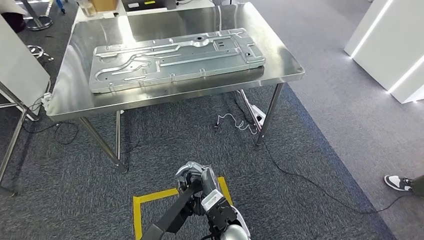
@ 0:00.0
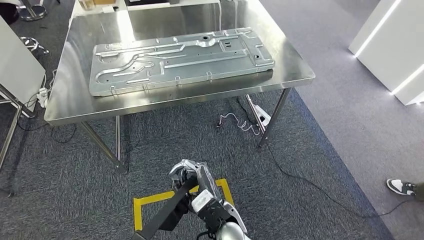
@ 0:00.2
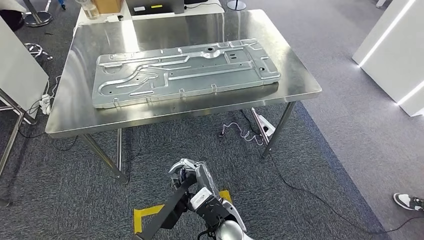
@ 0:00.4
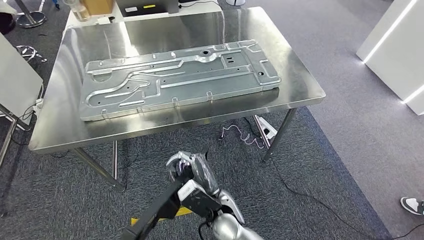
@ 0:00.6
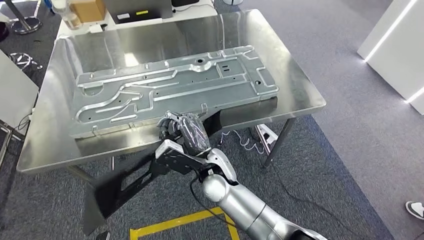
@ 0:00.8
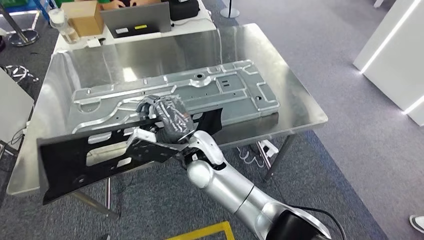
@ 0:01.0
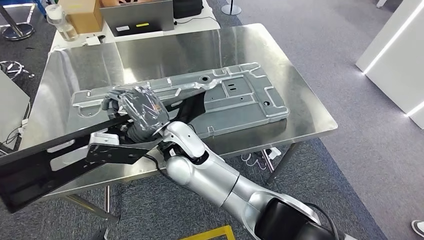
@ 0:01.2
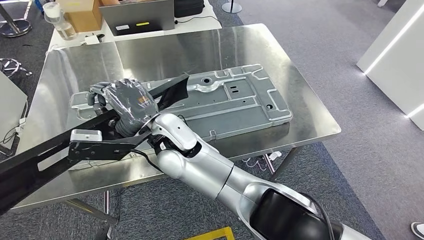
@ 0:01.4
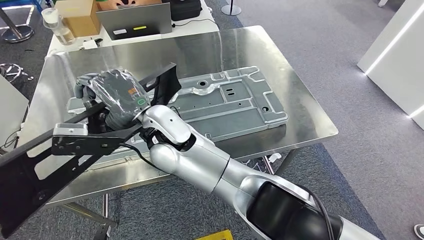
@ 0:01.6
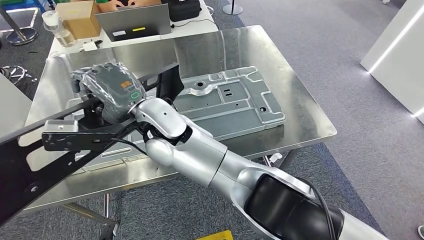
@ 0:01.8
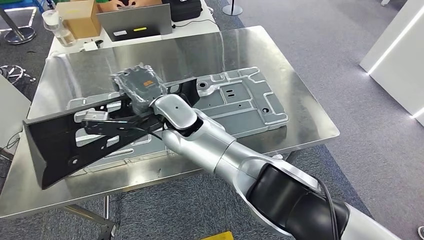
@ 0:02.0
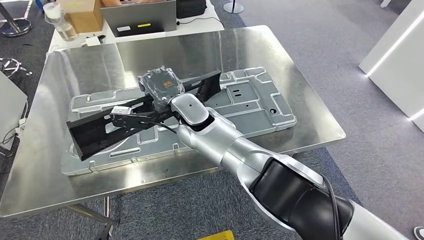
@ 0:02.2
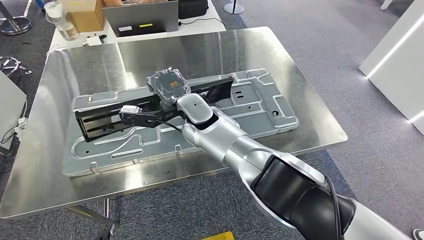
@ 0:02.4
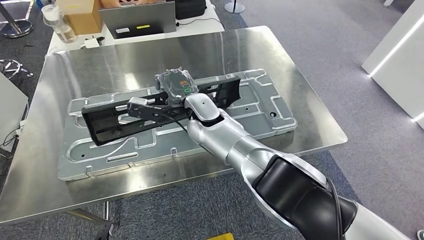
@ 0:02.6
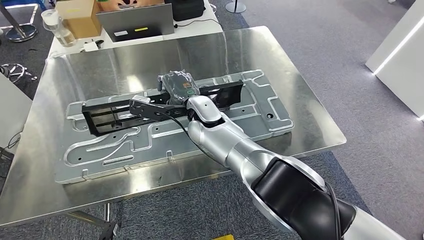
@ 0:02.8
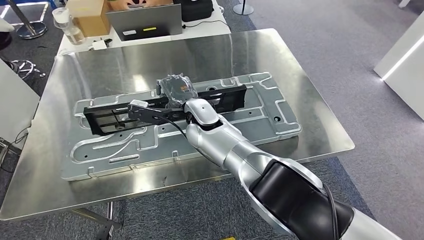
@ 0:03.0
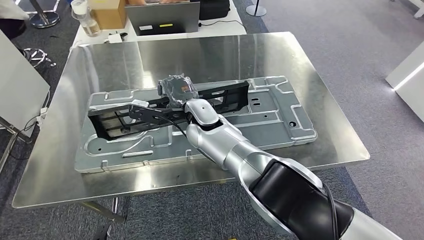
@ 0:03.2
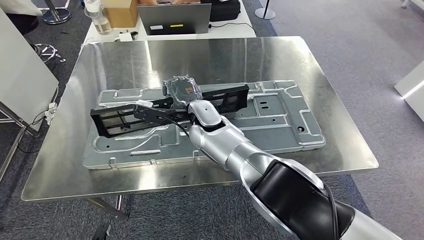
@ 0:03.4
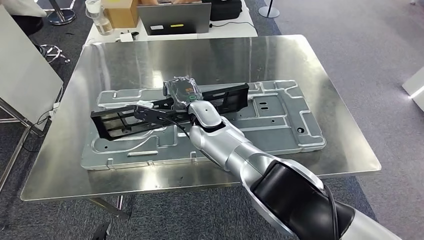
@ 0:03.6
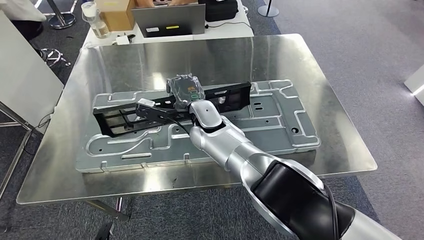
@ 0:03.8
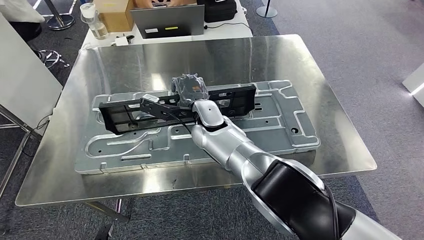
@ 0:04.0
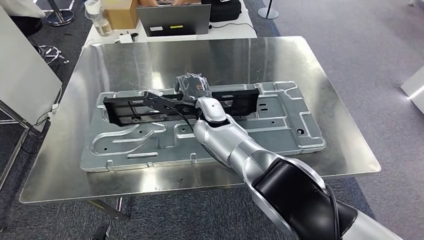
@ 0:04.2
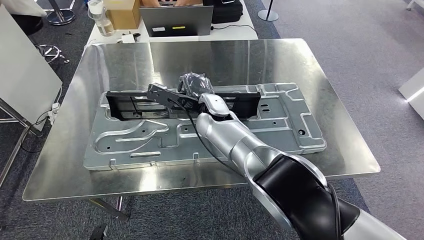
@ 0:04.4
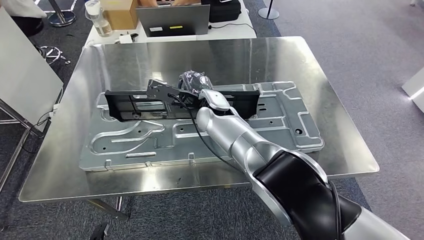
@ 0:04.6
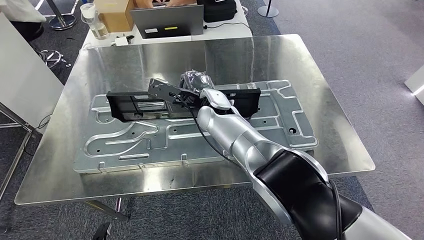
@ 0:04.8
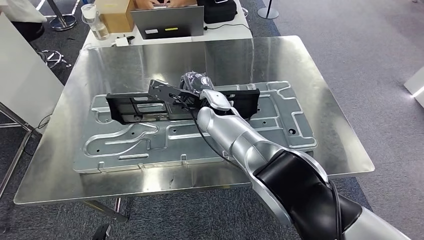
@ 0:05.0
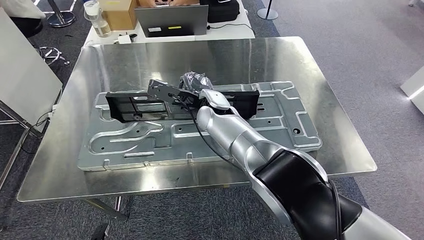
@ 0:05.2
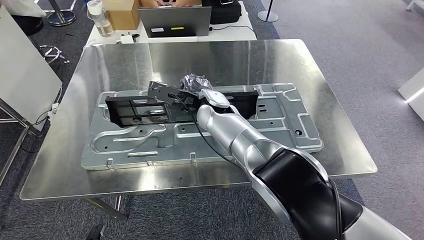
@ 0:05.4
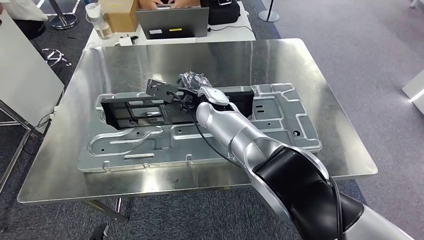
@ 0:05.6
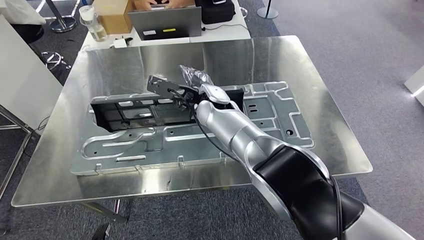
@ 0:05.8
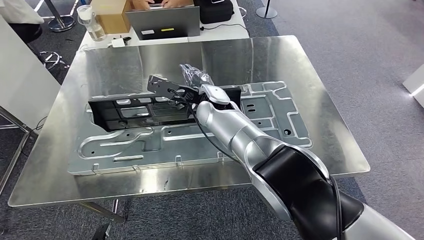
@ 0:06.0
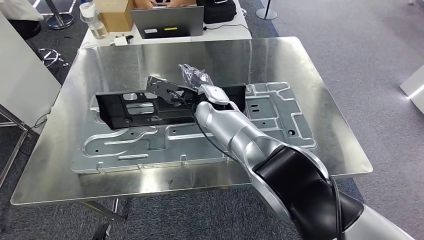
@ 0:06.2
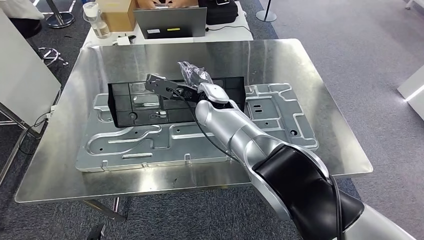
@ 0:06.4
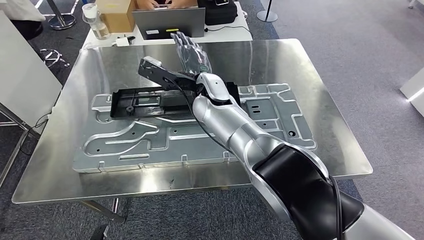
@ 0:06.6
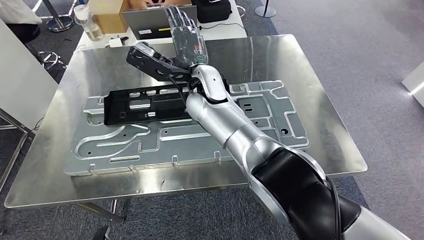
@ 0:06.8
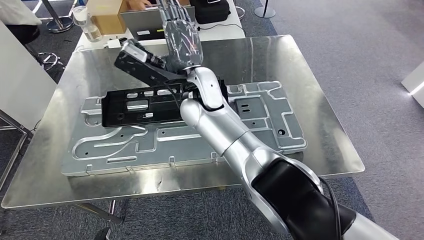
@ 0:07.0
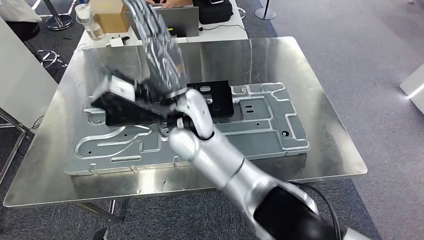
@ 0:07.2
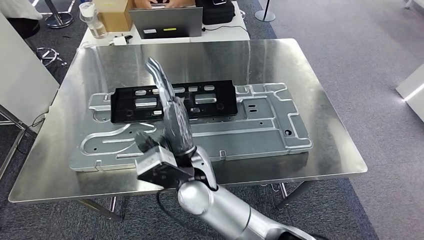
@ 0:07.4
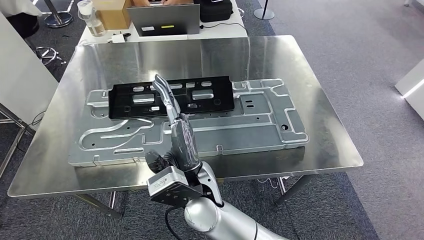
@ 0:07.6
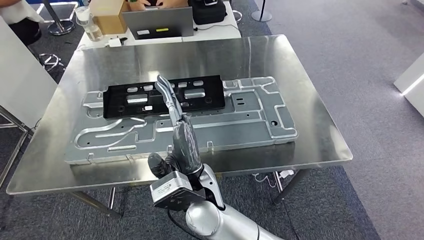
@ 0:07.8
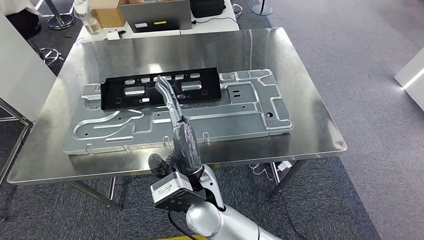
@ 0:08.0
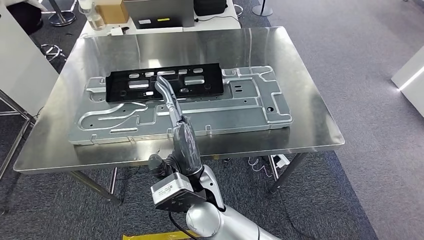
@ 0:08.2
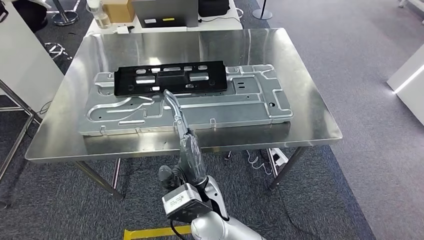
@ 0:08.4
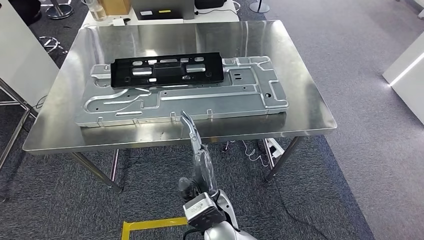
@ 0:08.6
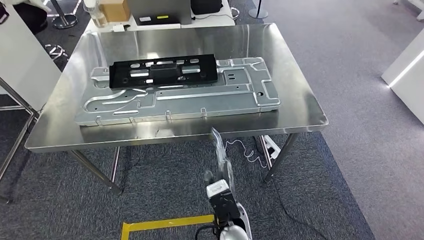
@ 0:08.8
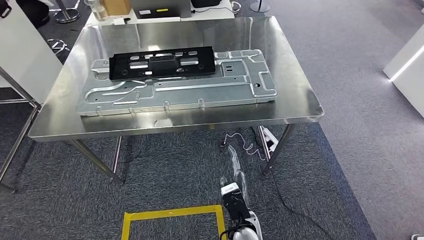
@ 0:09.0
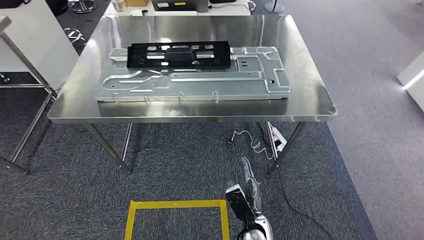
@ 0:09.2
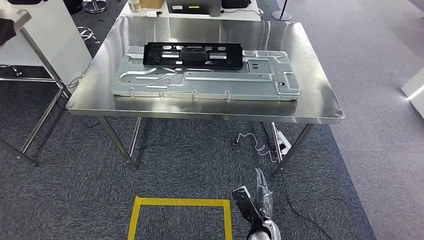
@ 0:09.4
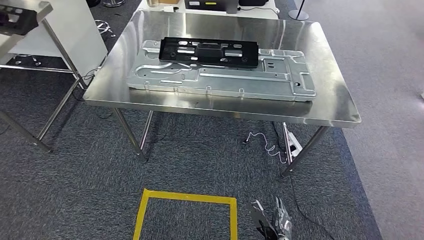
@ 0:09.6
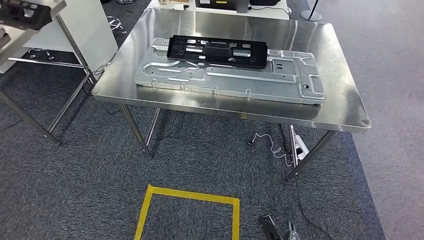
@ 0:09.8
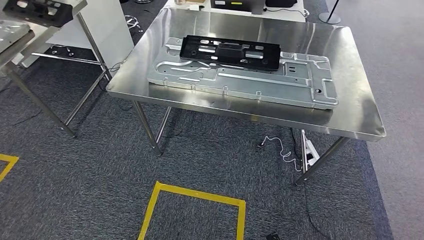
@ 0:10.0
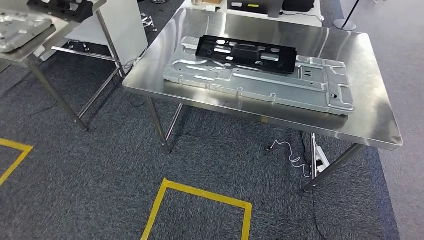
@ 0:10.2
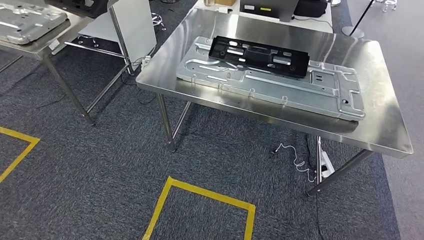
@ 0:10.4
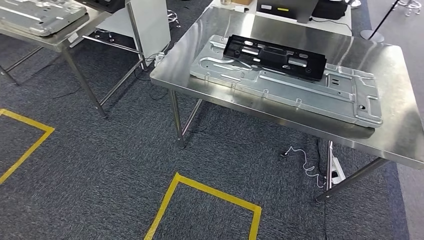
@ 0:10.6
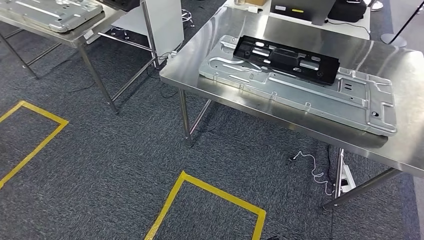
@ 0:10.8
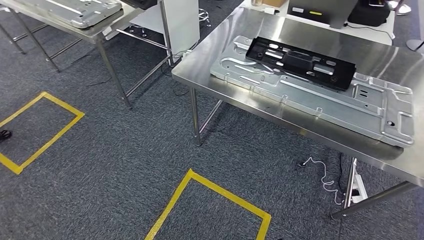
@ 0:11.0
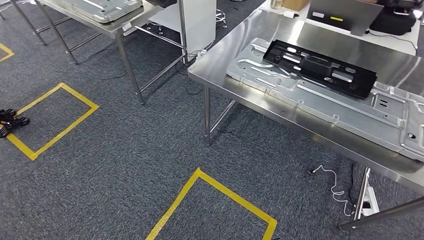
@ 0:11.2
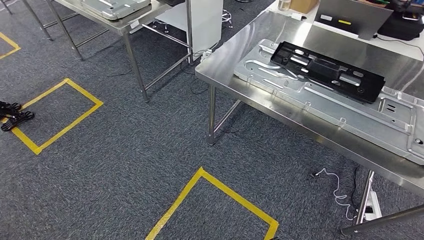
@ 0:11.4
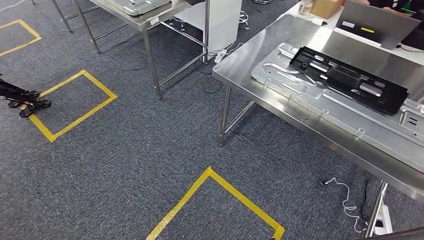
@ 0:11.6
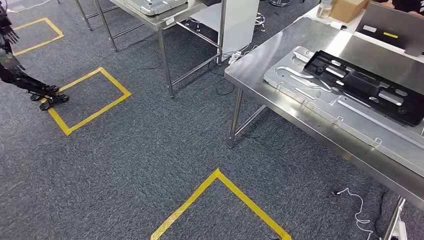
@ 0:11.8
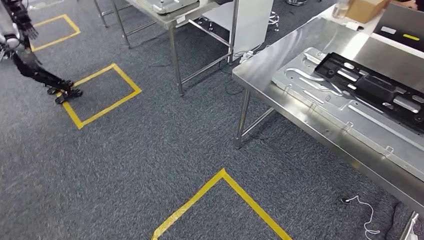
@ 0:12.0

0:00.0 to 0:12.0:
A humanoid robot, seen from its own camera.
Step, 0:01.4 to 0:10.6: Insert the large material into the corresponding slot on the workbench.

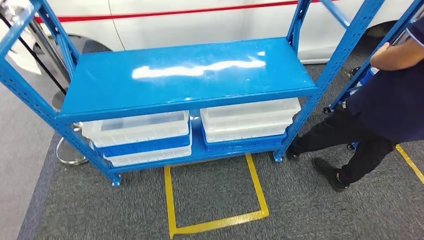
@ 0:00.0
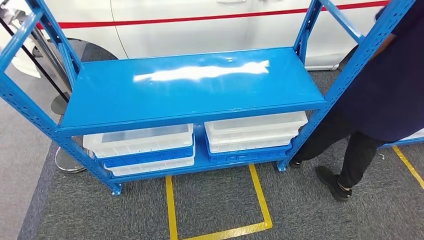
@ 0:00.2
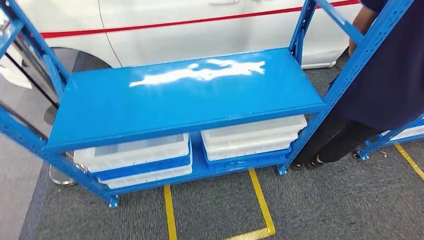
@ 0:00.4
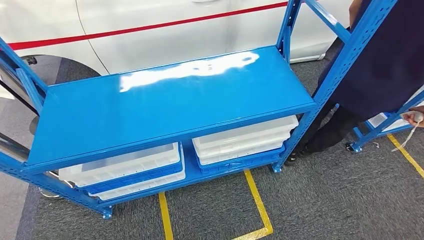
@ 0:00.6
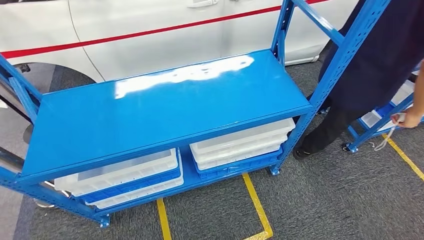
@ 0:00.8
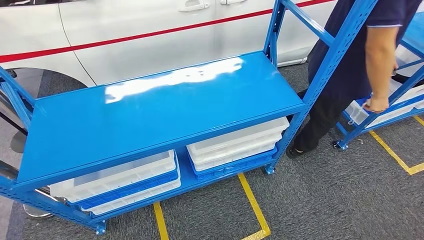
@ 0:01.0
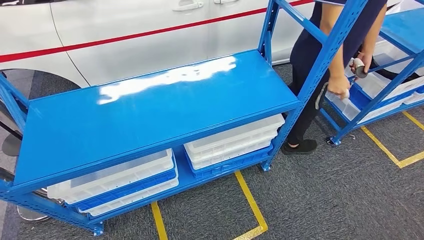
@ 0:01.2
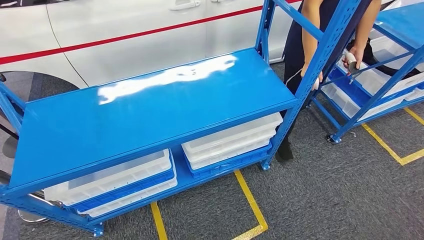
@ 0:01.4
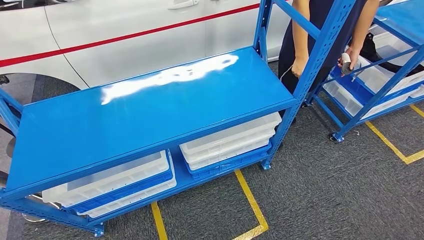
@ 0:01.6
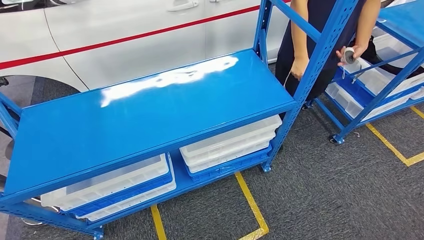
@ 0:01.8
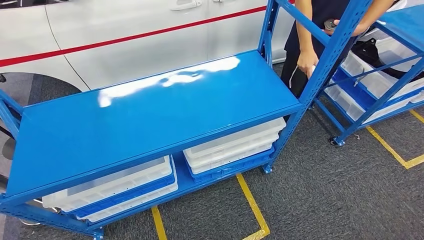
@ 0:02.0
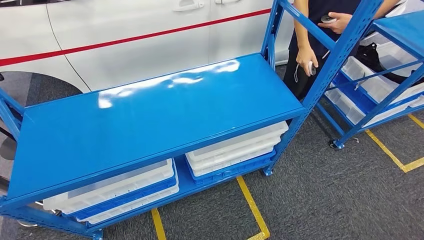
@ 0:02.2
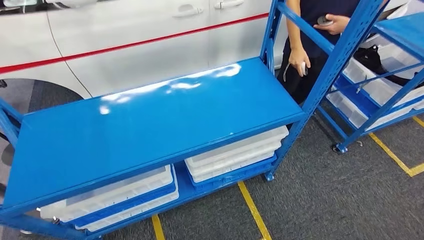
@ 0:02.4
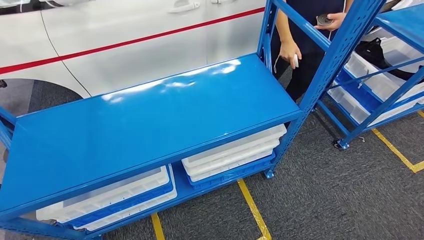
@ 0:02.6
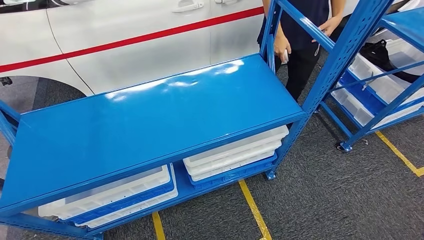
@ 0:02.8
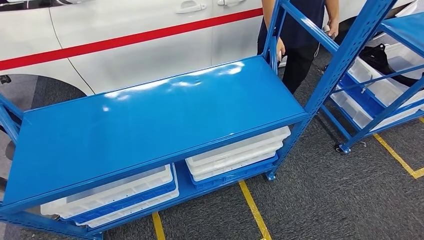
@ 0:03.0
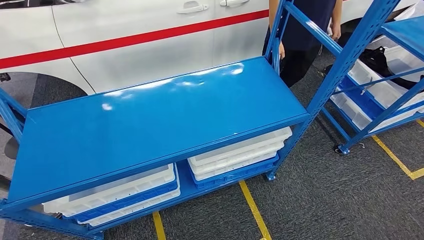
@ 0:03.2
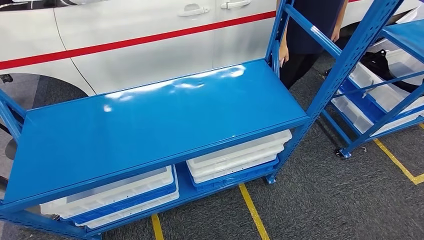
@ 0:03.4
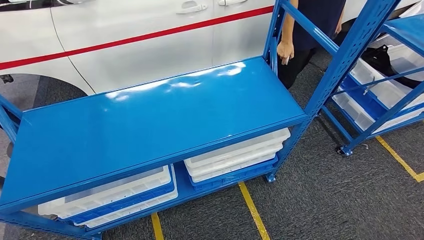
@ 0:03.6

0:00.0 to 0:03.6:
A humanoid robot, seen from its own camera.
Step, 0:00.0 to 0:03.6: Move to the initial position of the shelf.
